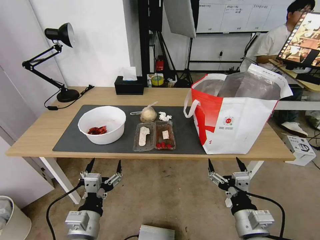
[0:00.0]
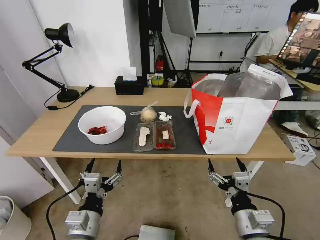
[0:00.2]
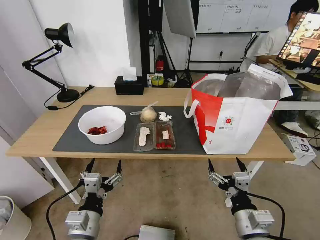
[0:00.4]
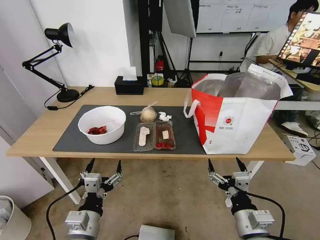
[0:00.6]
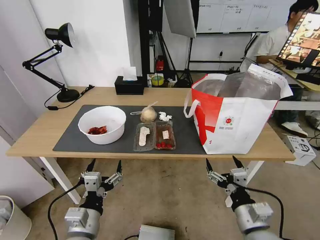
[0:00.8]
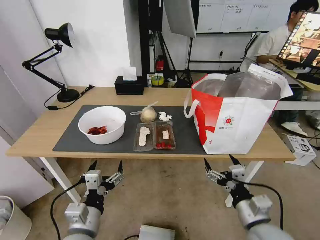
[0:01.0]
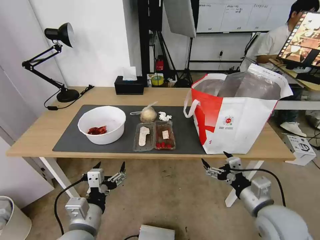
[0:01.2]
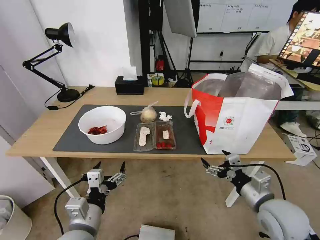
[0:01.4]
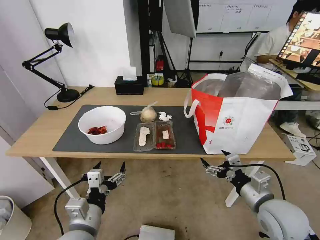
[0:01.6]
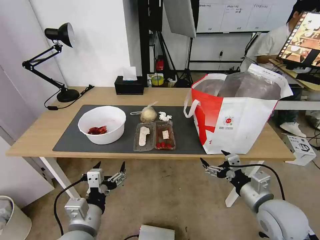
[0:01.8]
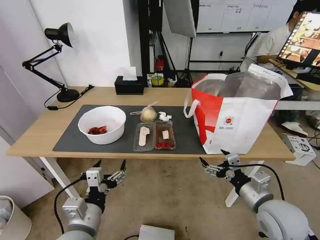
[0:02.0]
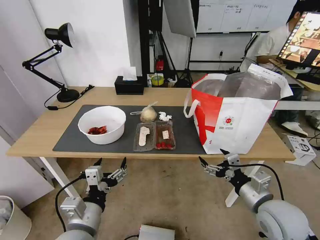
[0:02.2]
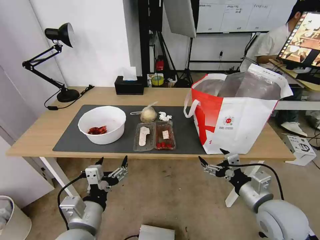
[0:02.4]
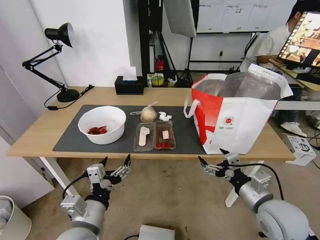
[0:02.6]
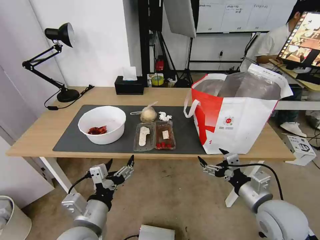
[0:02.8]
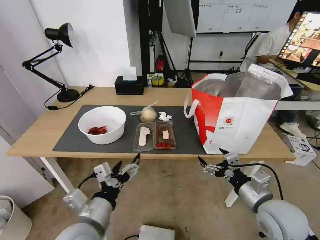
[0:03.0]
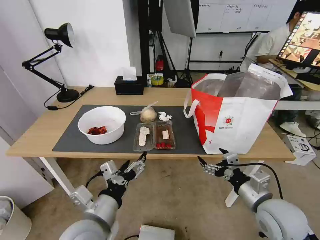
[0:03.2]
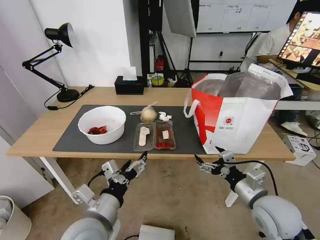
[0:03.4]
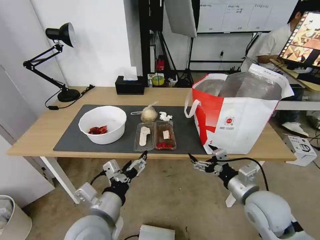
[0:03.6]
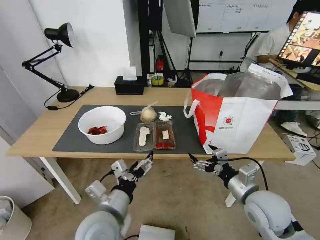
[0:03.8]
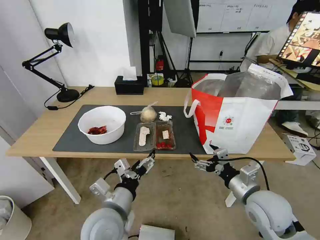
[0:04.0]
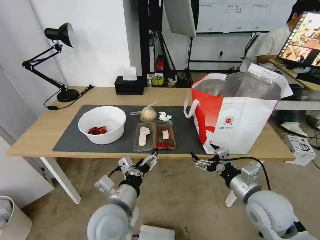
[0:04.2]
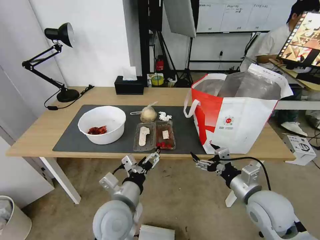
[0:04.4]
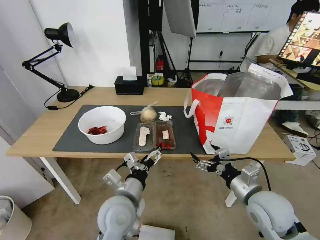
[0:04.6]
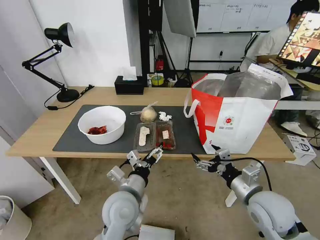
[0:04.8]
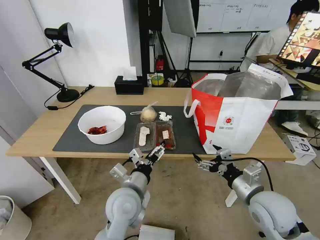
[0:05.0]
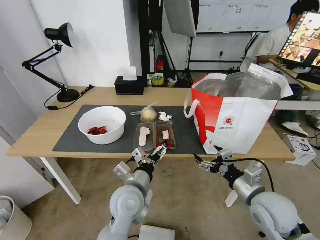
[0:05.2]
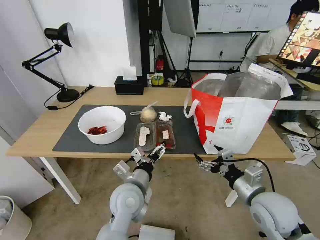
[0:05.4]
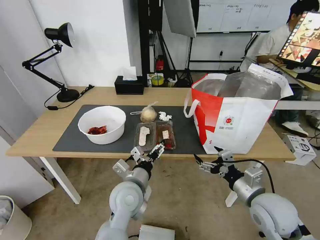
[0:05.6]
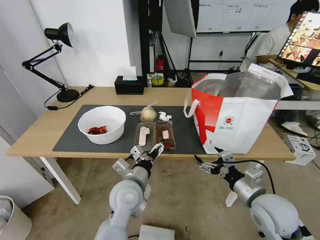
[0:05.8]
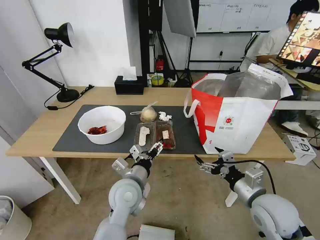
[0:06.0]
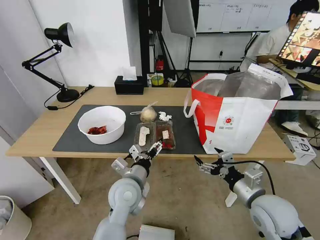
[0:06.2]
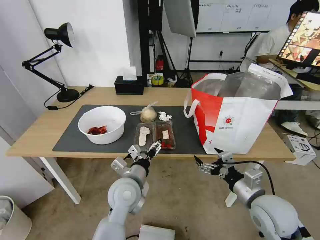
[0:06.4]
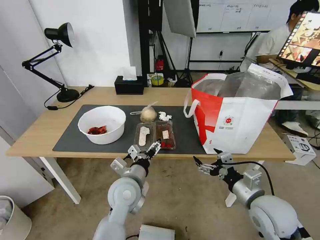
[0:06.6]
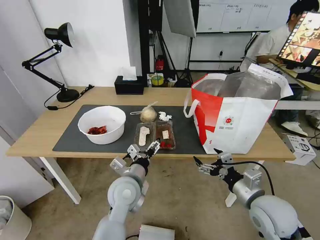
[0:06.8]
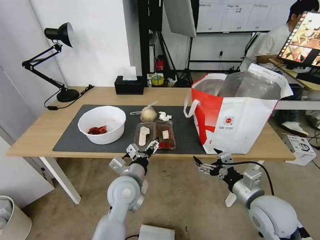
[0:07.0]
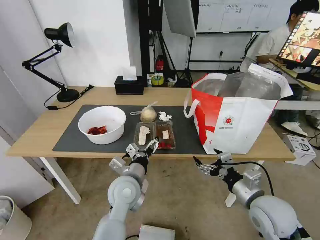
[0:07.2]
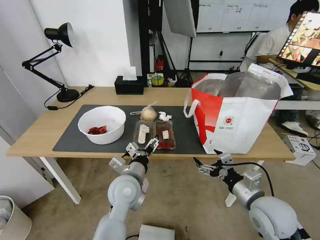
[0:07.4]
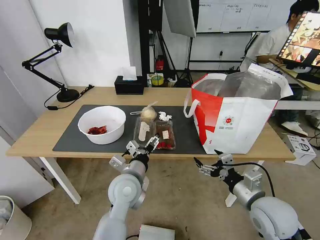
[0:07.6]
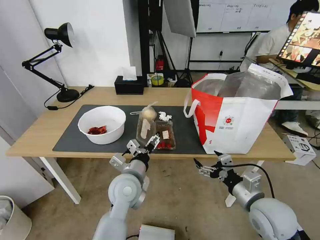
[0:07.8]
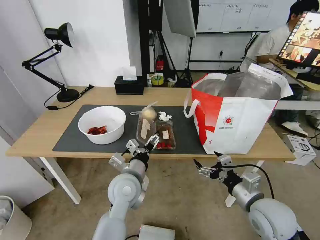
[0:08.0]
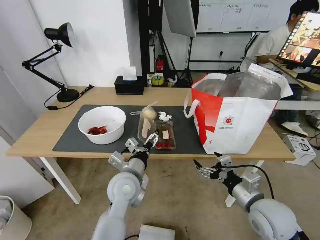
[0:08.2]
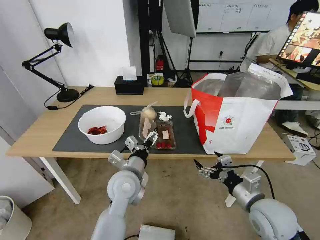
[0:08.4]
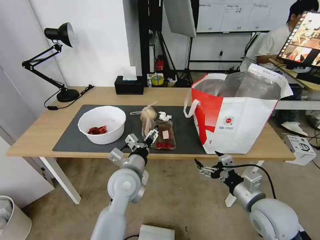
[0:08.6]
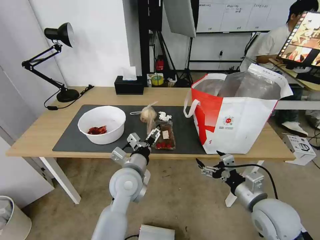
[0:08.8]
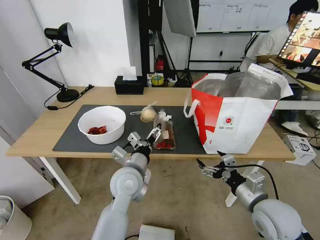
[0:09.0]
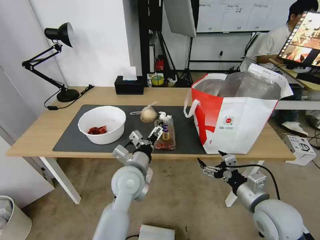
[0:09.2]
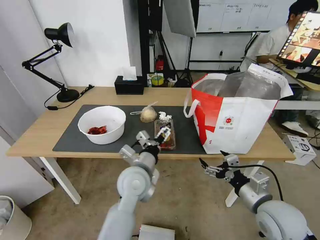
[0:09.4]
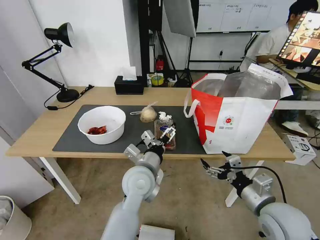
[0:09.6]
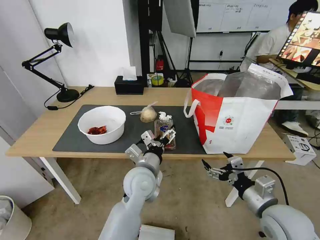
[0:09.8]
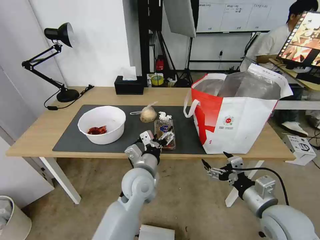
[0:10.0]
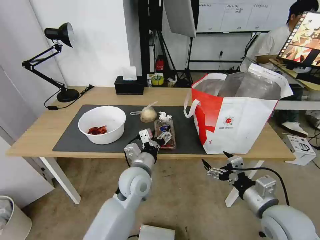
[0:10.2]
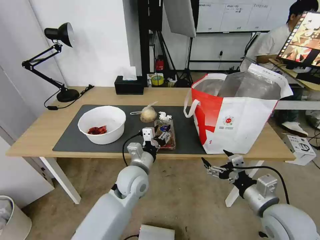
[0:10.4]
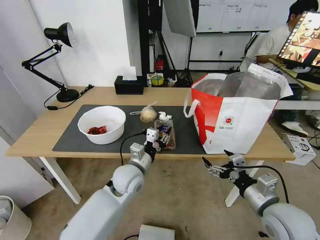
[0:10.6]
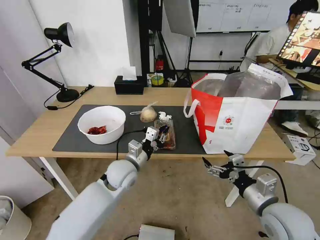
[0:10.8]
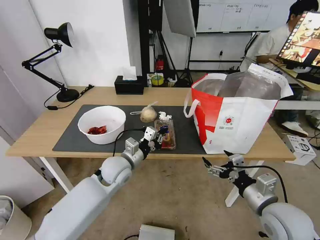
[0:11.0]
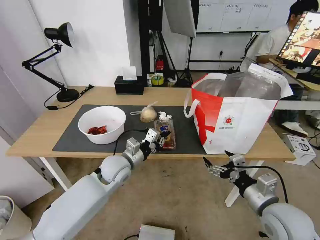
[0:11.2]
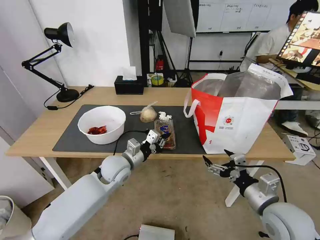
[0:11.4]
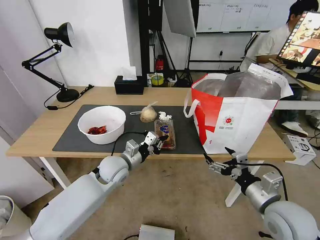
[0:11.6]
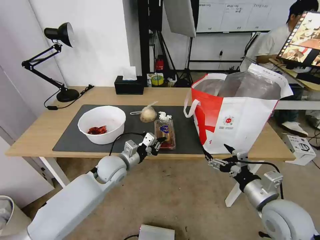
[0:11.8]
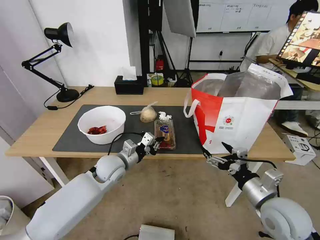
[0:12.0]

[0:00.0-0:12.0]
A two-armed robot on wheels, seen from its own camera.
Task of the whole recording: Pick up the trash from the table and place it into the takeout bag.
0:03.0 to 0:04.4: The left gripper moves to the right and forward, roughly 10 cm.
0:04.4 to 0:06.0: The left gripper travels forward by about 5 cm.
0:06.0 to 0:07.6: Neither gripper changes place.
0:07.6 to 0:09.0: The grippers move only a little.
0:09.0 to 0:10.4: The left gripper closes up.
0:10.4 to 0:12.0: The left gripper is displaced to the left and forward by roughly 10 cm, and closes.

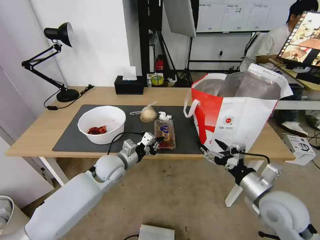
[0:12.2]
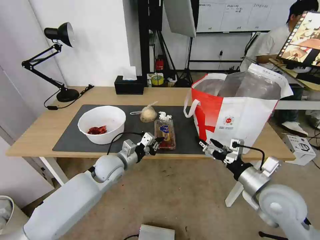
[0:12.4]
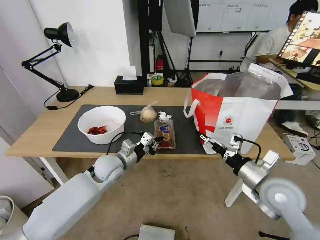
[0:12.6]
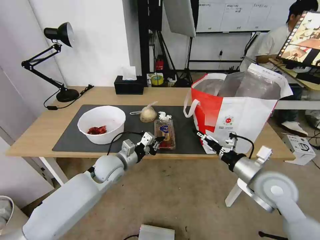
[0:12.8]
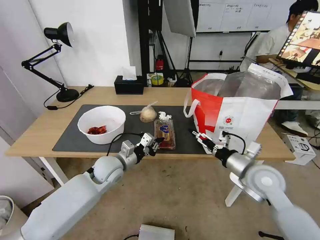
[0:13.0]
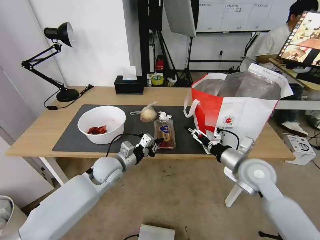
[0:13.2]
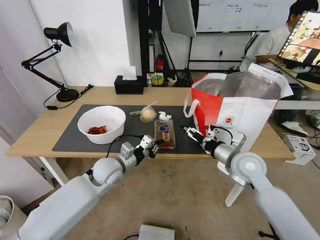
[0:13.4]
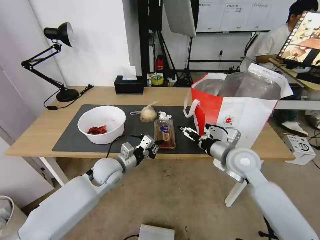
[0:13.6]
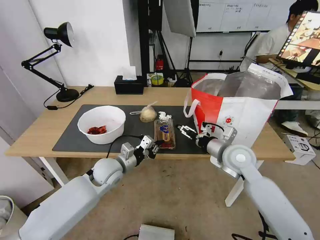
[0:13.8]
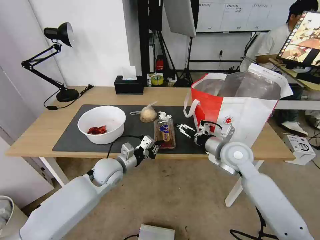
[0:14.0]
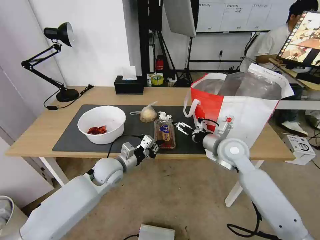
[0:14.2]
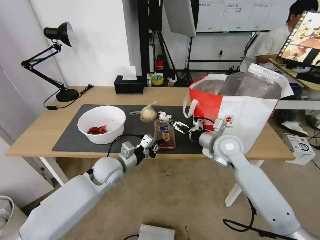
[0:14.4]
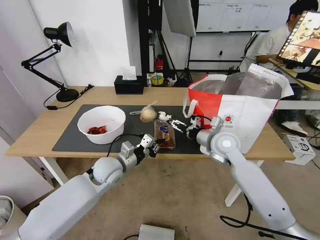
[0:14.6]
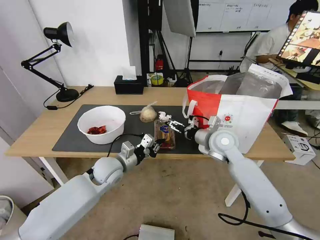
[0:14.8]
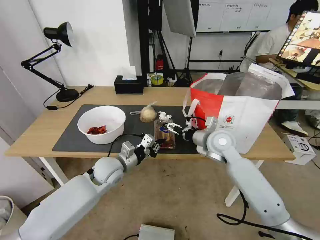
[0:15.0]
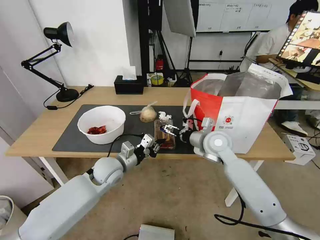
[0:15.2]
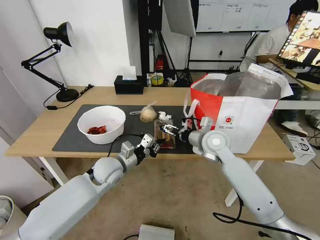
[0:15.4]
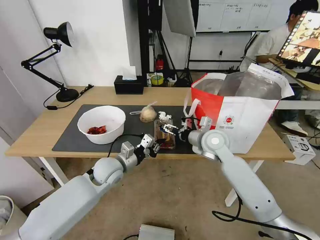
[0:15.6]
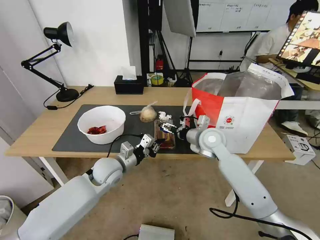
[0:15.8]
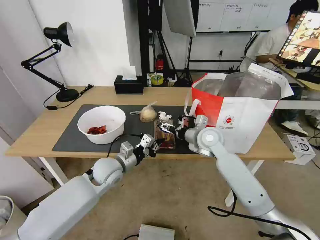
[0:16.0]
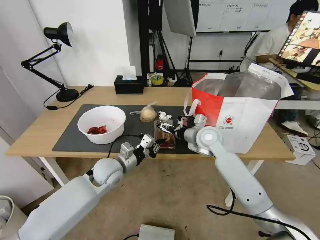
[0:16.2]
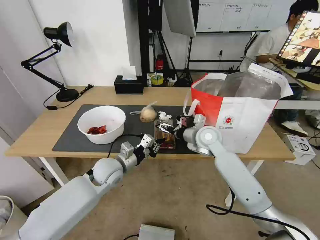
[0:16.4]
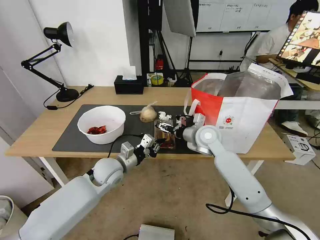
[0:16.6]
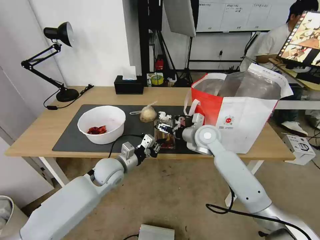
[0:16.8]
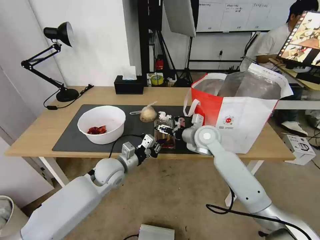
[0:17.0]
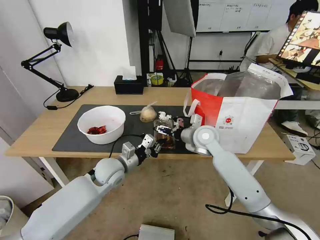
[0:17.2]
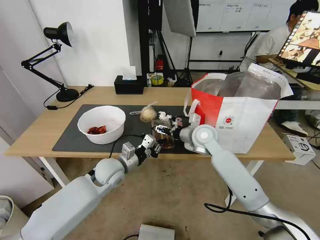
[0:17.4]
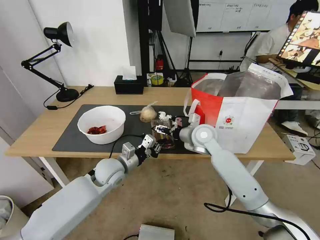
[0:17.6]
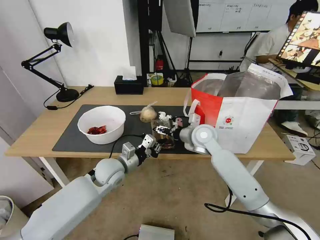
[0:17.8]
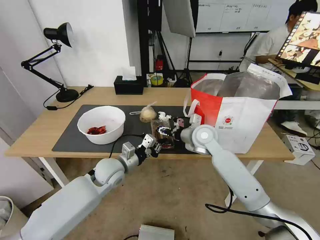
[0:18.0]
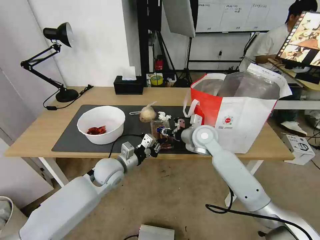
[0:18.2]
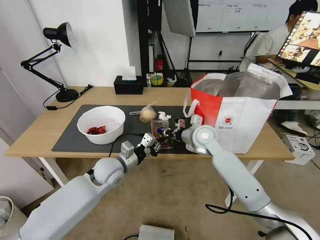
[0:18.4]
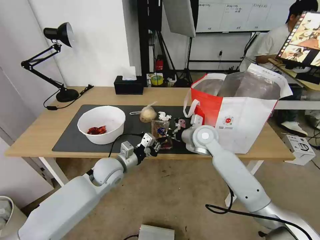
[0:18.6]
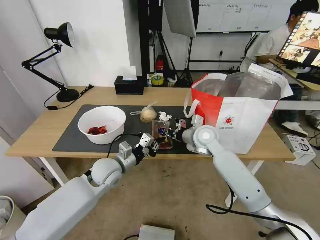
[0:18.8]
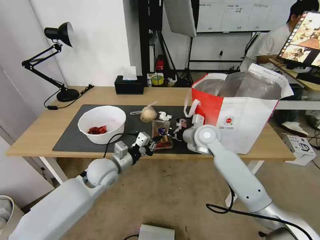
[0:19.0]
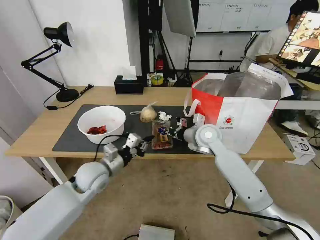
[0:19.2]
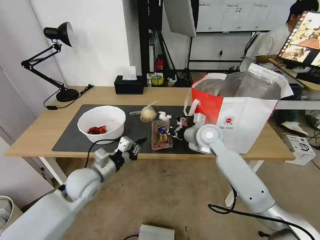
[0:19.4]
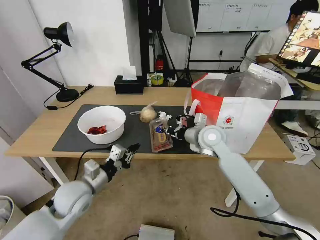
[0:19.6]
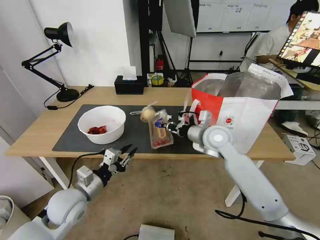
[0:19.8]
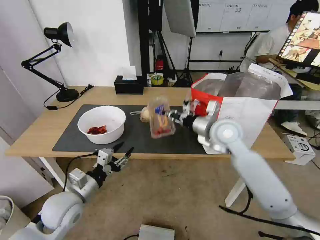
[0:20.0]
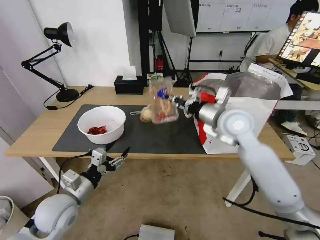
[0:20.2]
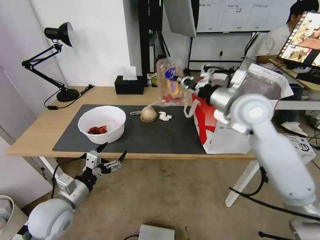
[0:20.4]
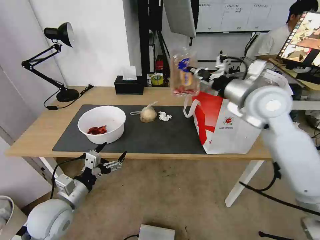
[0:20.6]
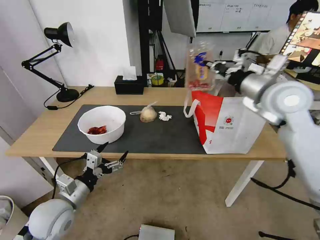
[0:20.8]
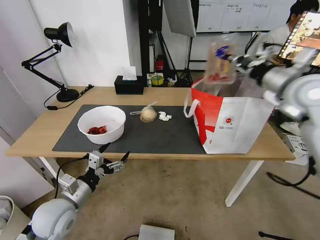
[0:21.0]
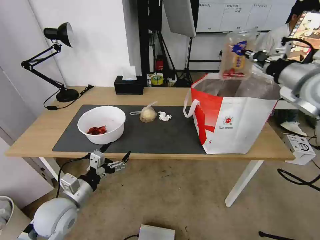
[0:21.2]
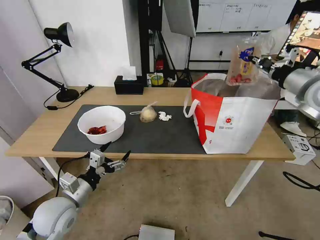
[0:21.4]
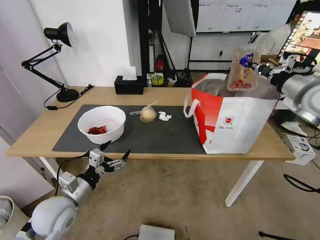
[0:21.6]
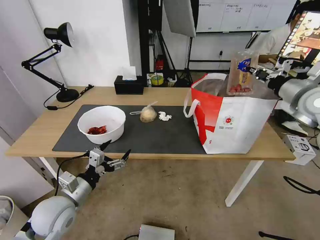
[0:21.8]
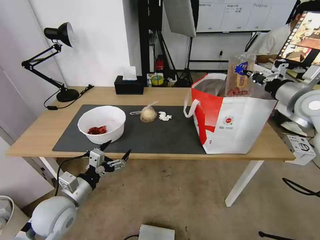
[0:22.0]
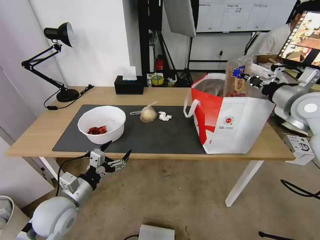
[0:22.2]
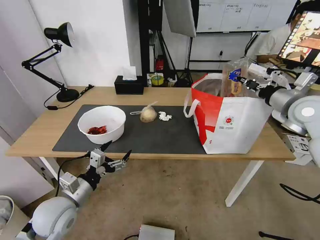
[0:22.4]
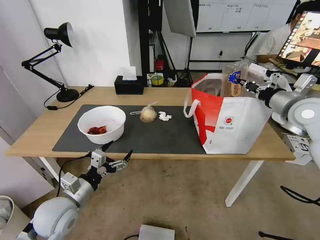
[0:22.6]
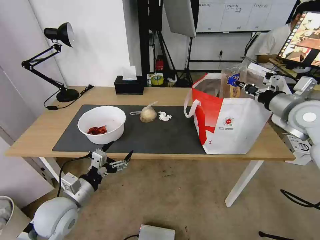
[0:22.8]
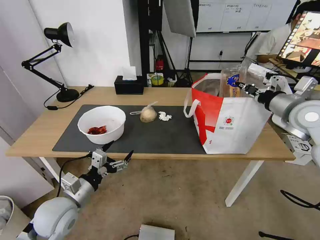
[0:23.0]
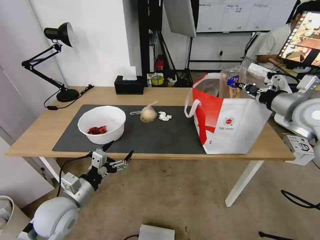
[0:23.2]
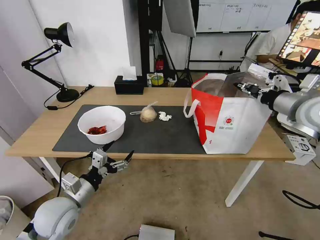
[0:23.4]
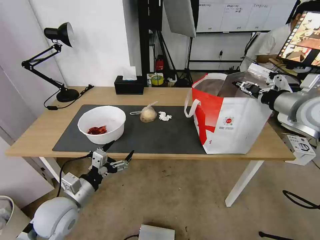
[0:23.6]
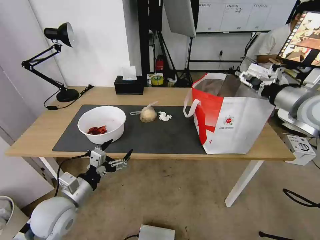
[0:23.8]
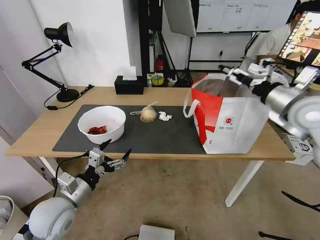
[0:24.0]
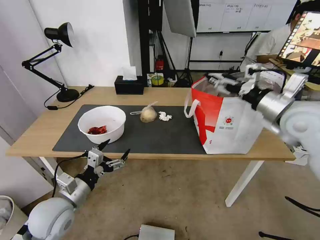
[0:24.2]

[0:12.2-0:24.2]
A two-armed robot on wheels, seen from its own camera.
Task of the whole recording: Pick up the trash from the table and place it into the takeout bag.
0:12.2 to 0:13.8: The right gripper is displaced forward and to the left by some 15 cm.
0:13.8 to 0:15.2: The right gripper travels forward and to the left by some 5 cm.
0:15.2 to 0:16.6: The grippers make only small movements.
0:16.6 to 0:18.2: The right gripper closes its fingers.
0:18.2 to 0:19.8: The right gripper closes its fingers. Meanwhile the left gripper shifts roughly 15 cm backward and to the left.
0:19.8 to 0:21.2: The left gripper opens up; the right gripper heads to the right and upward, covering approximately 30 cm.
0:21.2 to 0:22.6: The right gripper goes about 10 cm downward.
0:22.6 to 0:24.2: The right gripper heads to the left, covering roughly 5 cm, and opens up.
